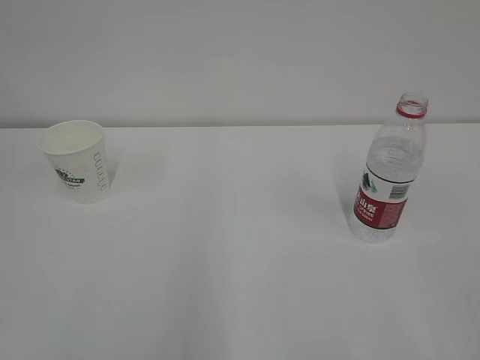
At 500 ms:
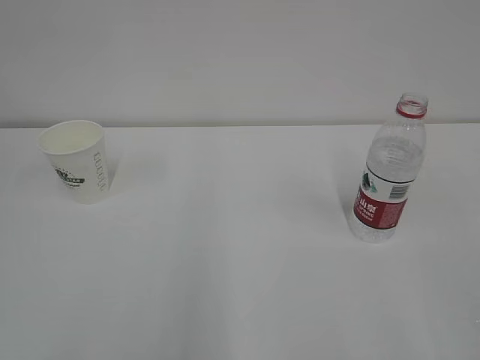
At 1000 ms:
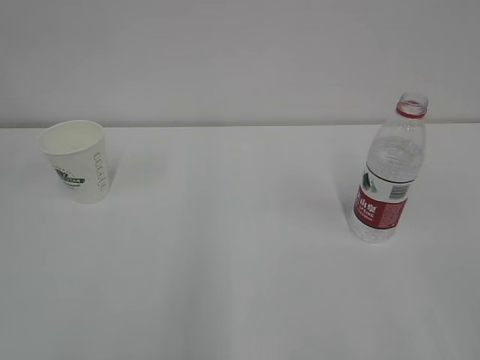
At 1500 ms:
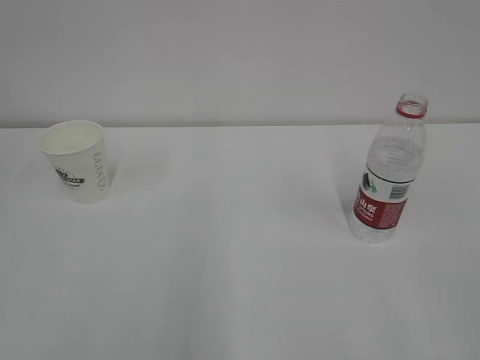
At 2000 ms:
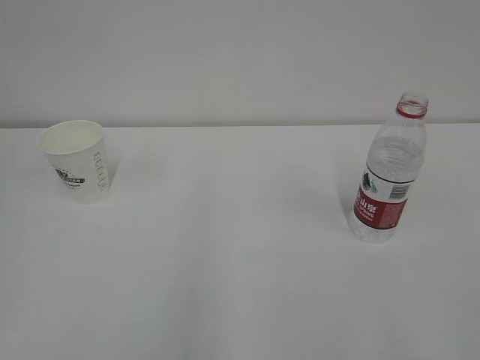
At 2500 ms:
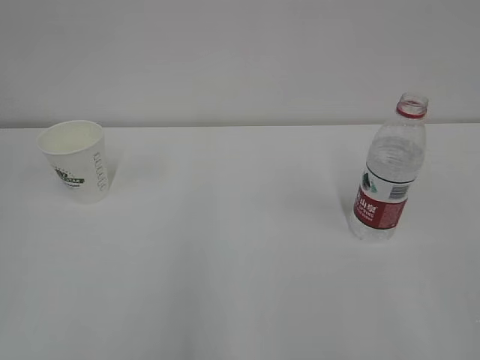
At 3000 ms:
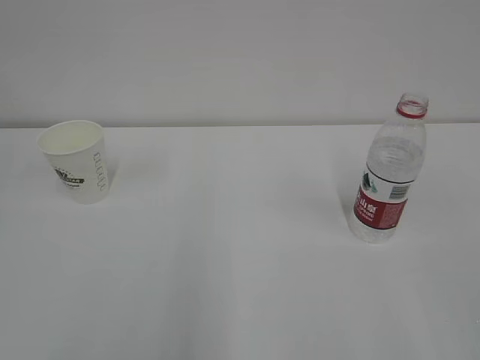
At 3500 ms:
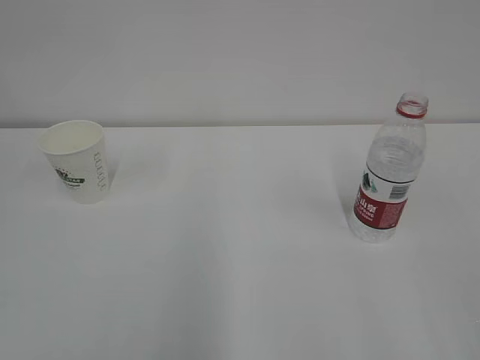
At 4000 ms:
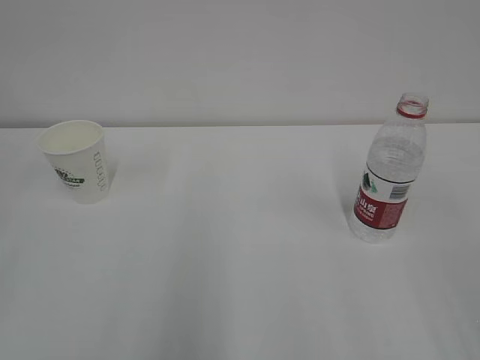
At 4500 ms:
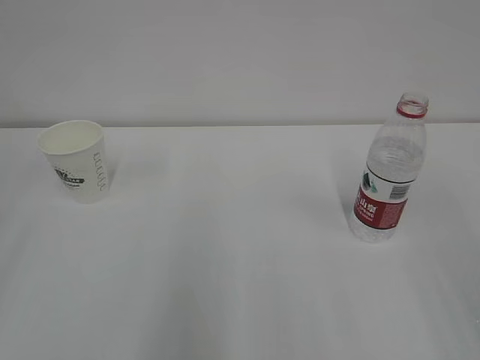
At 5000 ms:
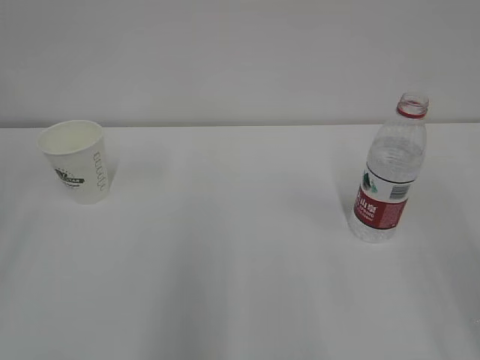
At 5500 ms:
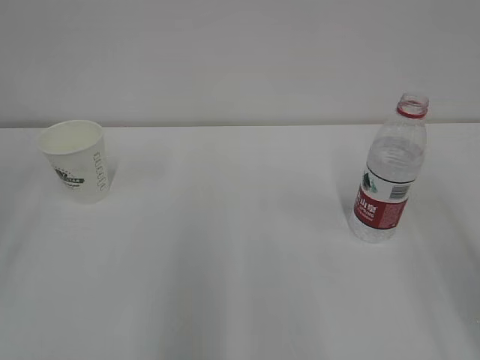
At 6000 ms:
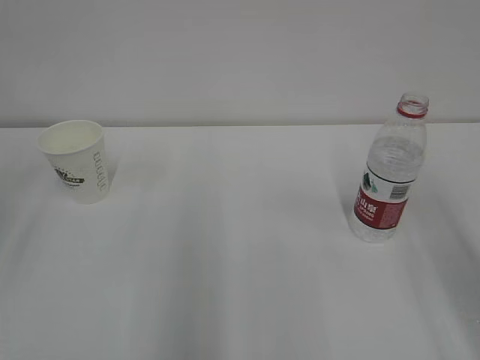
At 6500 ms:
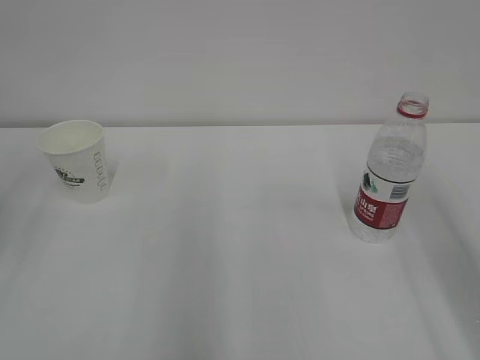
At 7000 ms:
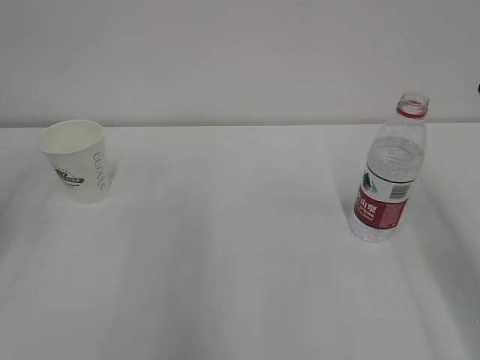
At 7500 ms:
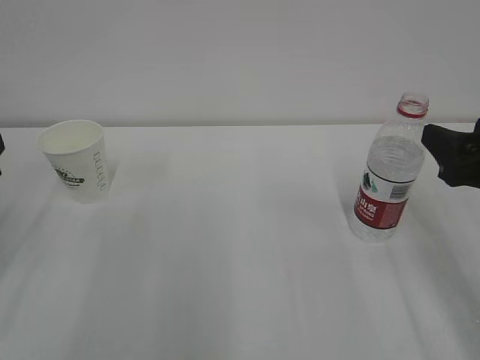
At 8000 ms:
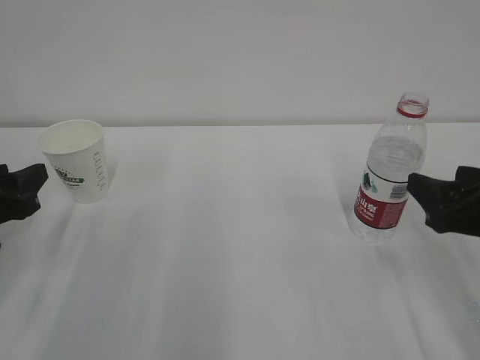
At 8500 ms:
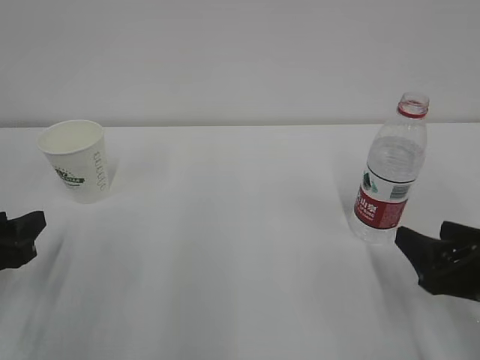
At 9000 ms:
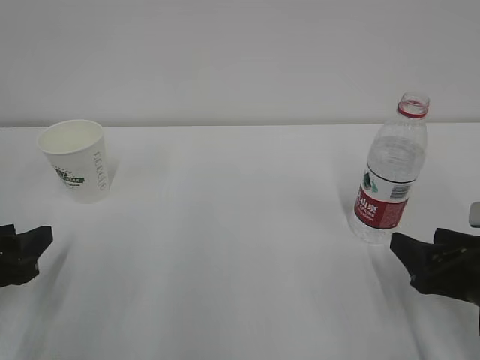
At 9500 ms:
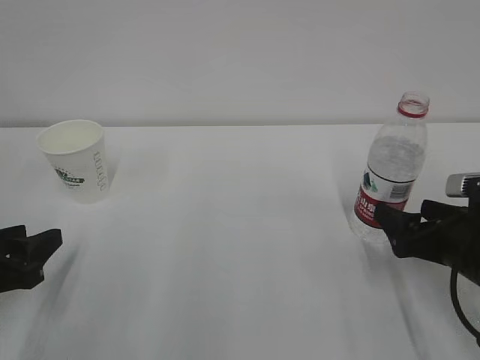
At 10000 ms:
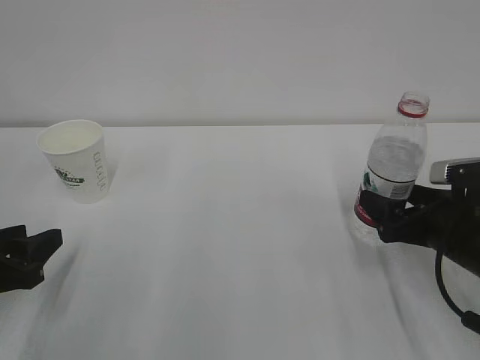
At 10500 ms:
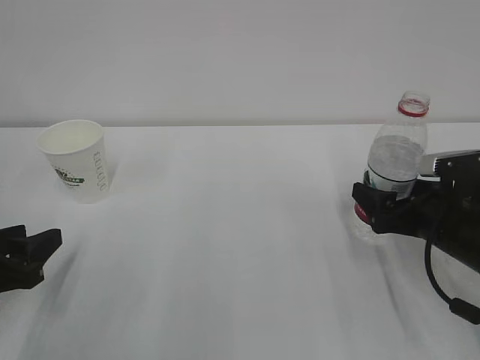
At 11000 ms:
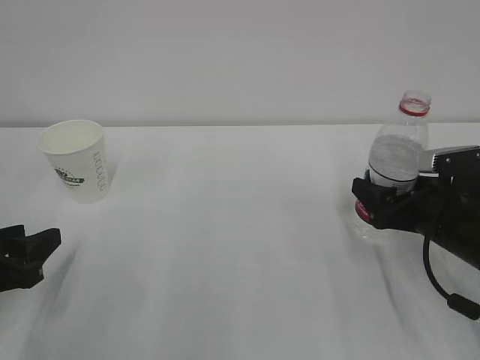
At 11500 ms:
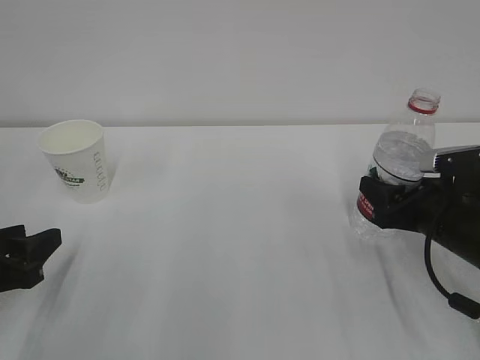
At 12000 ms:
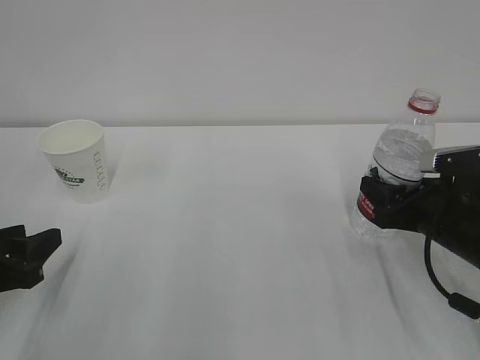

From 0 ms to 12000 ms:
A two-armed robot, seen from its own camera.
From 6000 ms to 8000 ms: The right gripper heads downward and forward, covering roughly 15 cm. The left gripper goes about 15 cm downward.
From 8000 ms to 10000 ms: The left gripper ends up roughly 5 cm from where it was. The right gripper shifts about 5 cm downward.
From 10000 ms to 12000 ms: The right gripper closes.

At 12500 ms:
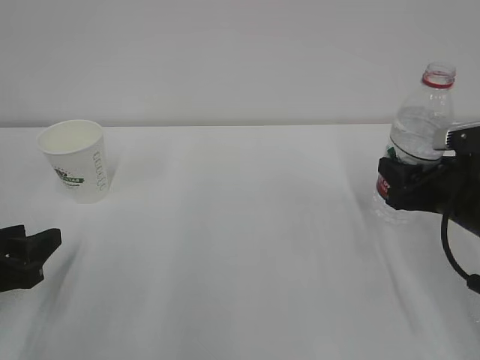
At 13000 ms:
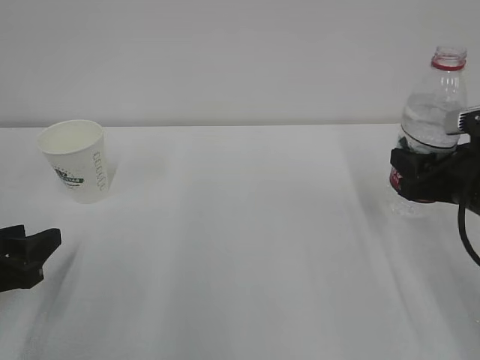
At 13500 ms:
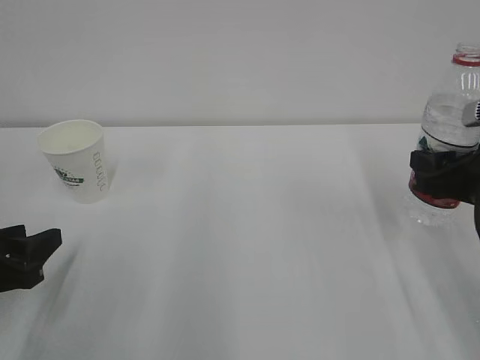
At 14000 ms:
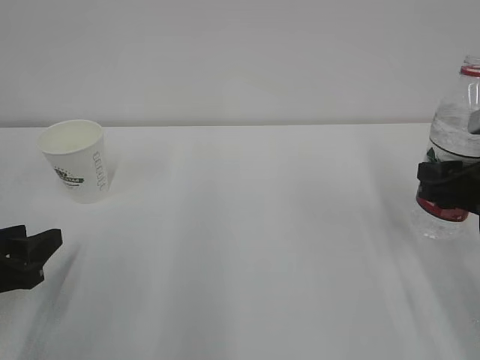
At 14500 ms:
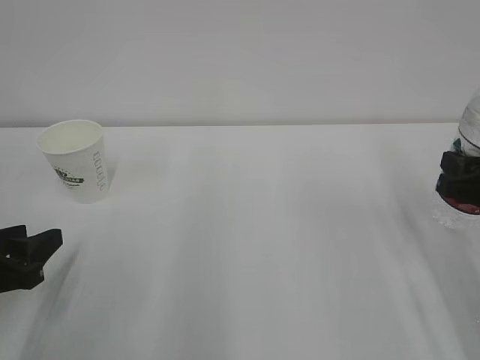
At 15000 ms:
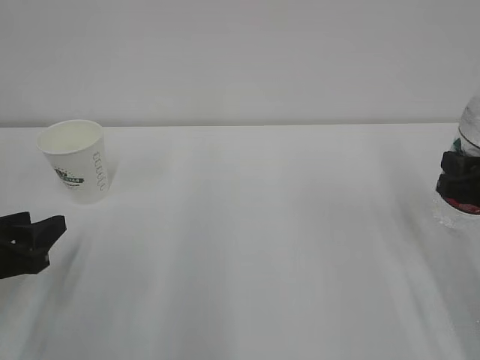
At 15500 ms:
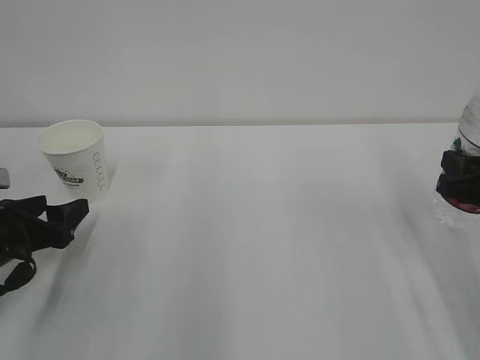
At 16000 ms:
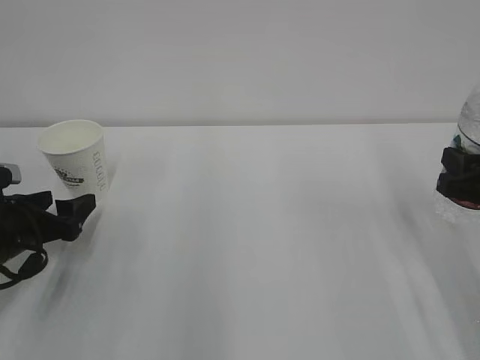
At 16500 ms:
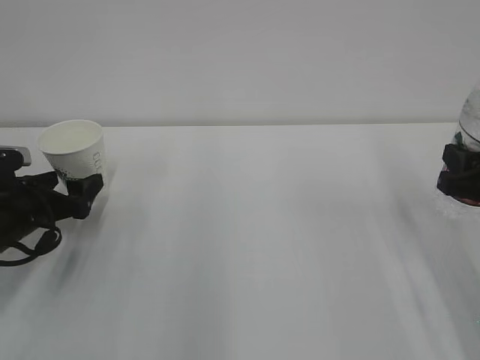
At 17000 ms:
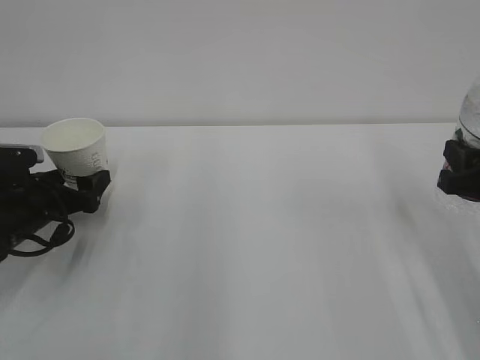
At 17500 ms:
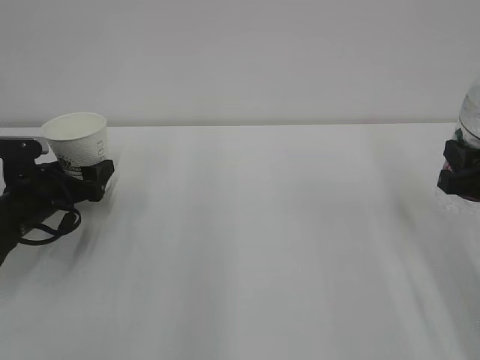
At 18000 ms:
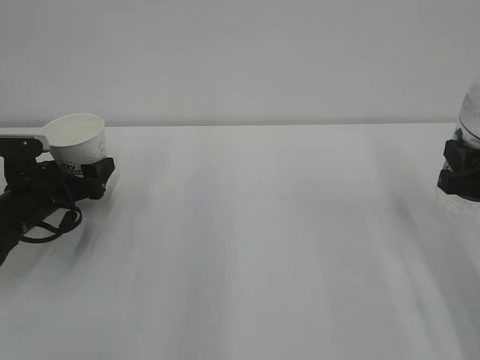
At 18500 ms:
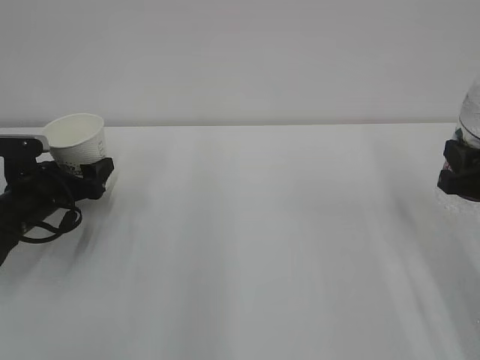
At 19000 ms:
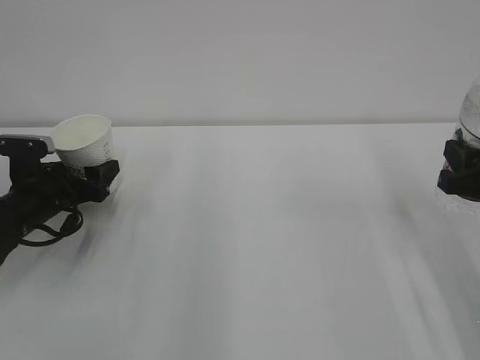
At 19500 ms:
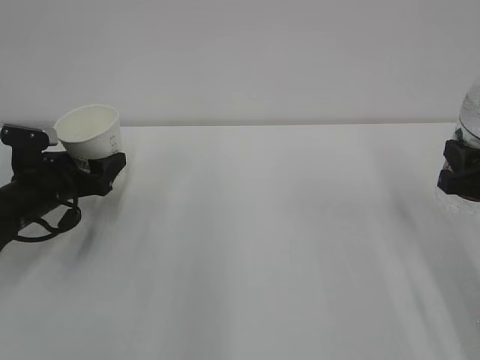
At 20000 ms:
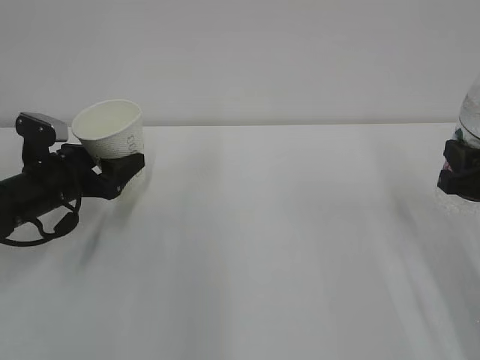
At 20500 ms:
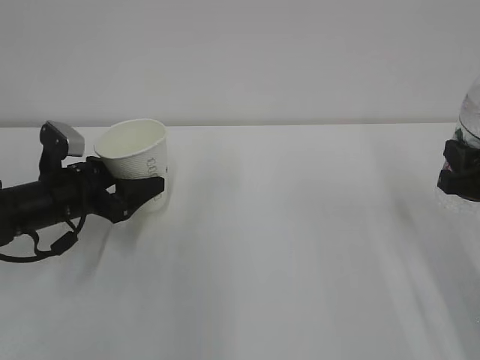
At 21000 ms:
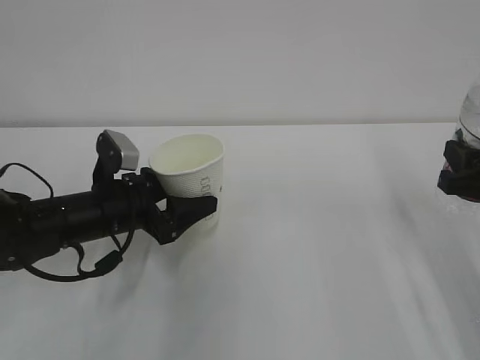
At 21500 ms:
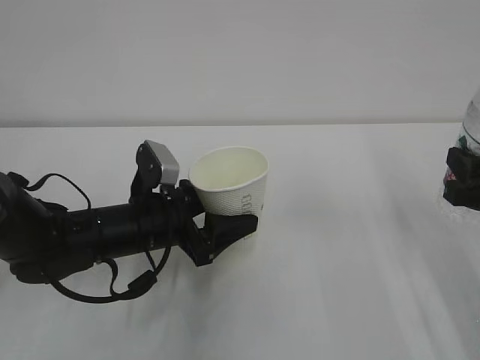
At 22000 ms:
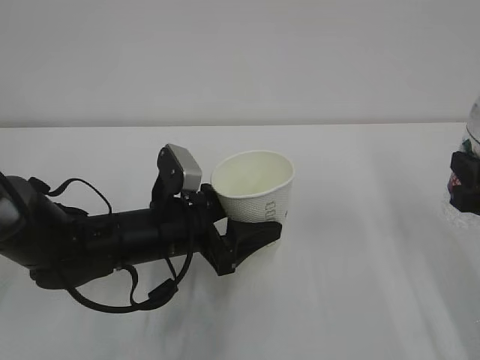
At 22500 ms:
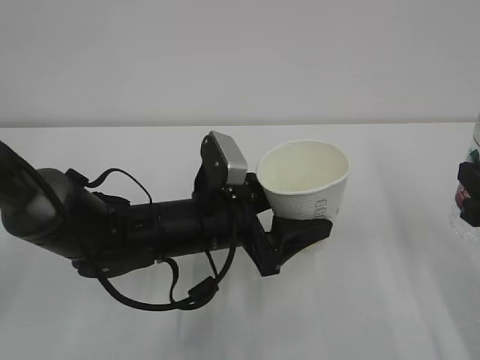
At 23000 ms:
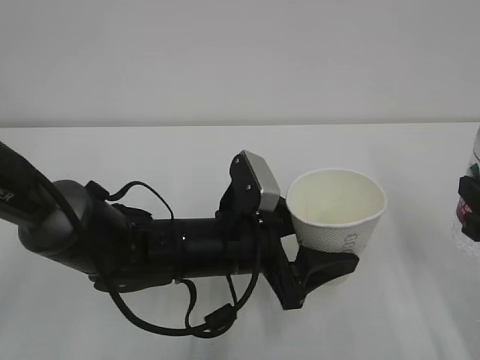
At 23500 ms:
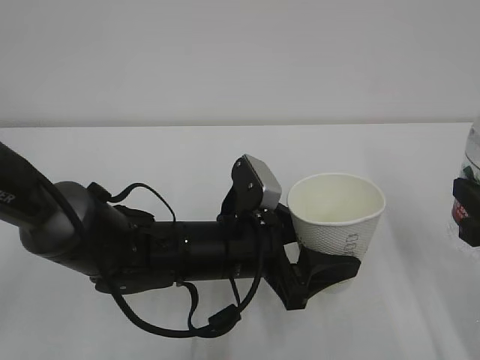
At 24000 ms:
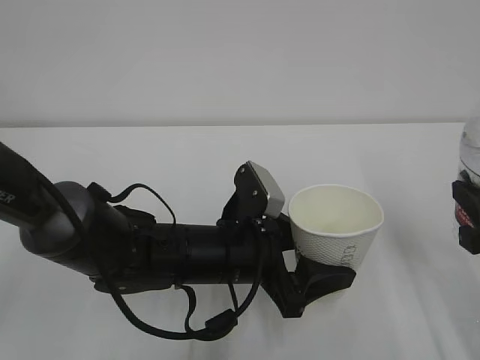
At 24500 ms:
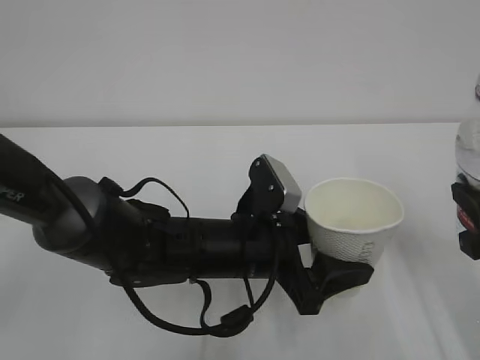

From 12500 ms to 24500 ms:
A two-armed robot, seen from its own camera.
From 12500 ms to 14500 ms: The right gripper moves some 5 cm.
From 14500 ms to 16500 ms: The left gripper goes some 10 cm forward, and opens its fingers.
From 16500 ms to 18500 ms: The grippers move only a little.
From 18500 ms to 20500 ms: The left gripper shifts by some 5 cm.
From 20500 ms to 22500 ms: The right gripper moves approximately 5 cm, while the left gripper moves to the right, about 20 cm.
From 22500 ms to 24500 ms: The grippers move only a little.

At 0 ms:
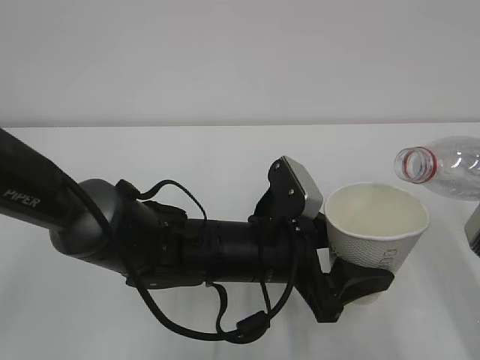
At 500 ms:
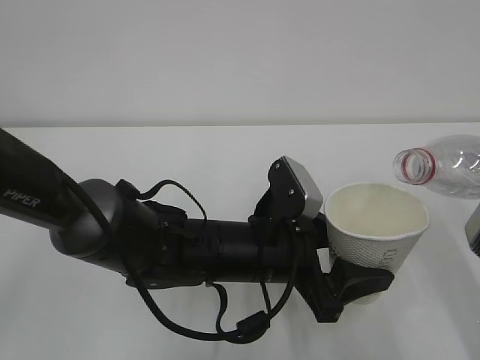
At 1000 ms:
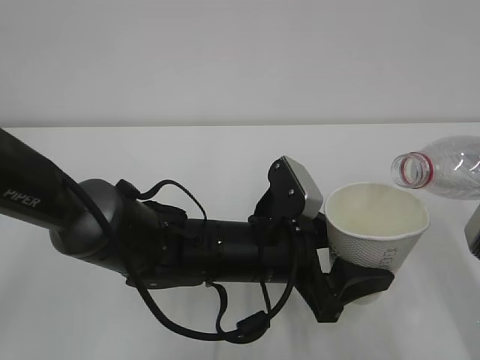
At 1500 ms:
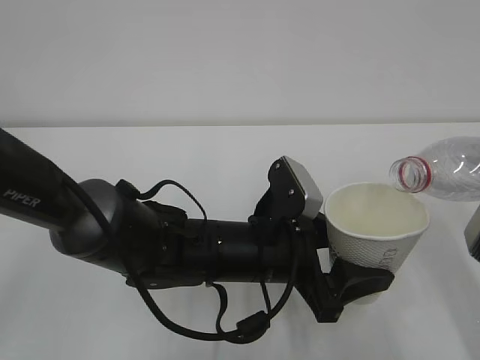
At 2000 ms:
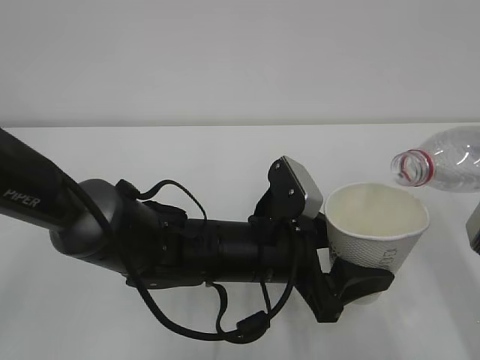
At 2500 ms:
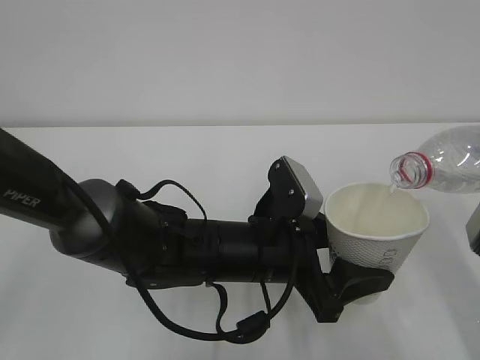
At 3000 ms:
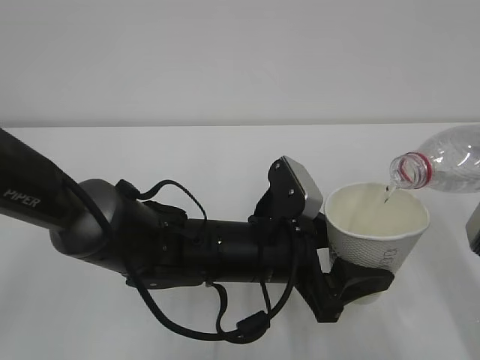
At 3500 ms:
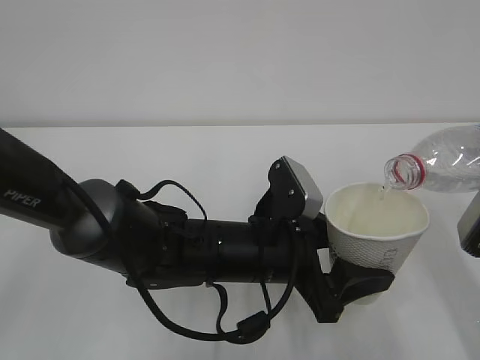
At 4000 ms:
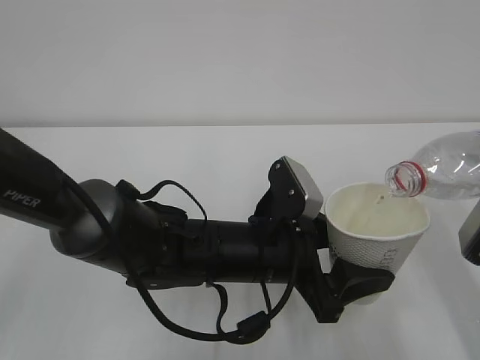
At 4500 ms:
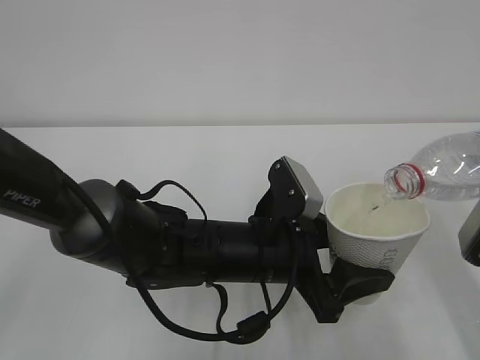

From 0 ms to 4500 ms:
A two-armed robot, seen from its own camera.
From 2000 ms to 4500 ms: Neither gripper changes place.
